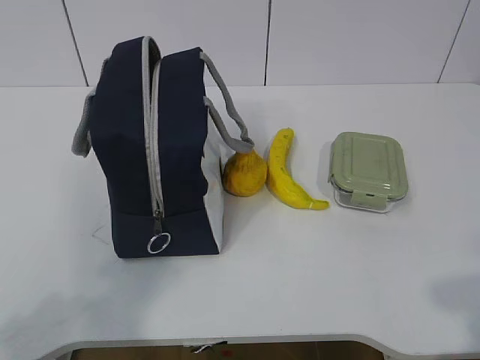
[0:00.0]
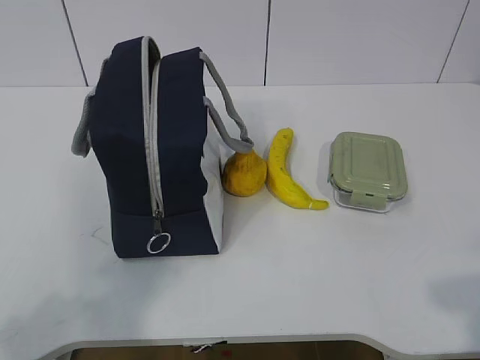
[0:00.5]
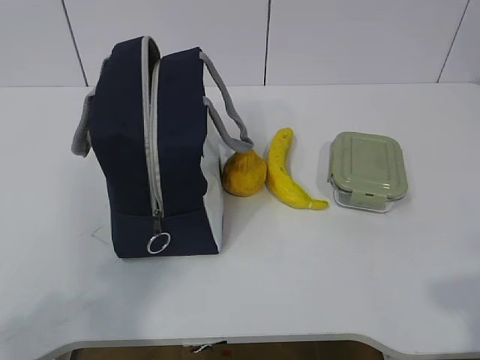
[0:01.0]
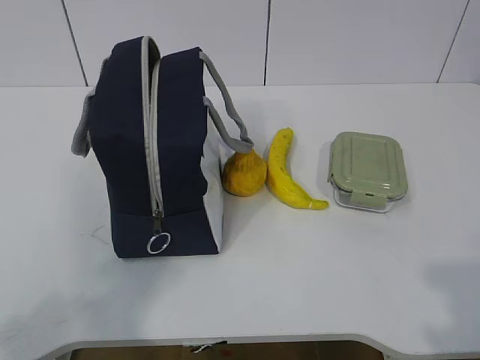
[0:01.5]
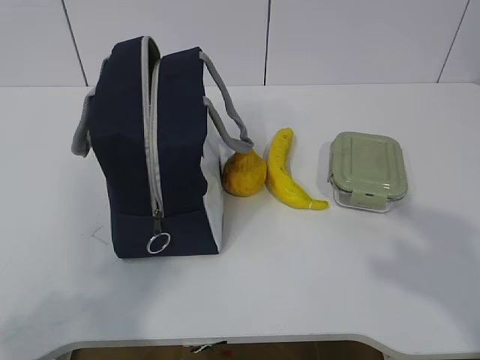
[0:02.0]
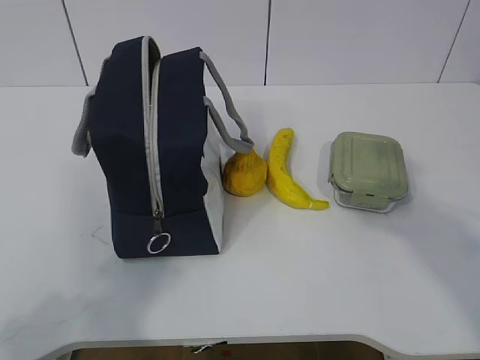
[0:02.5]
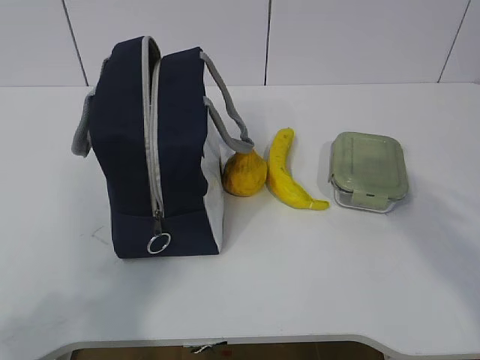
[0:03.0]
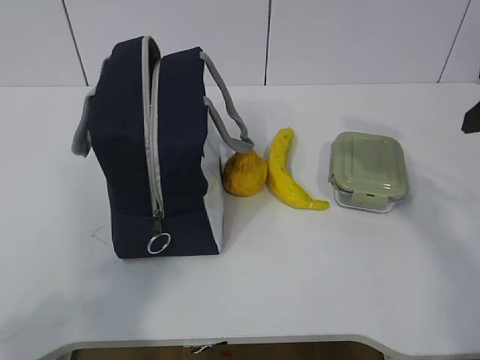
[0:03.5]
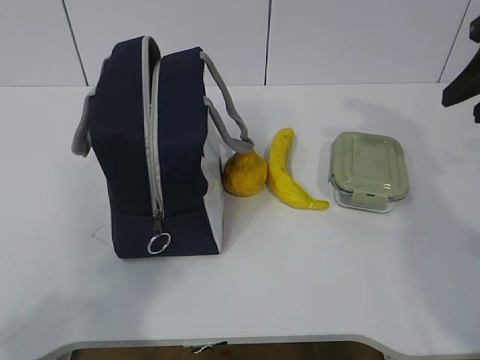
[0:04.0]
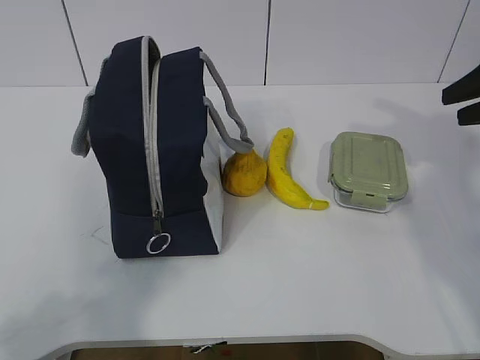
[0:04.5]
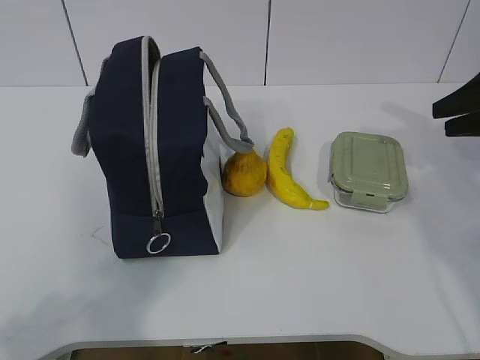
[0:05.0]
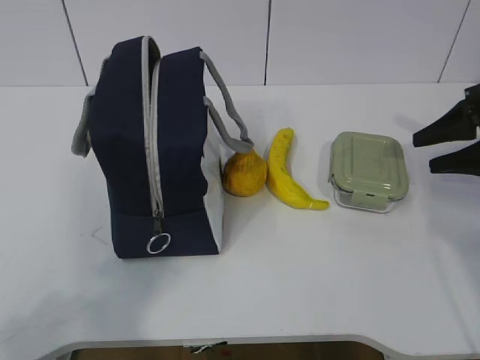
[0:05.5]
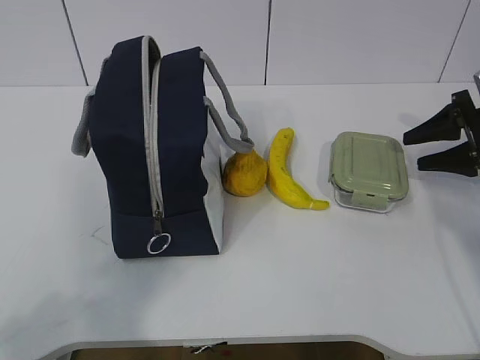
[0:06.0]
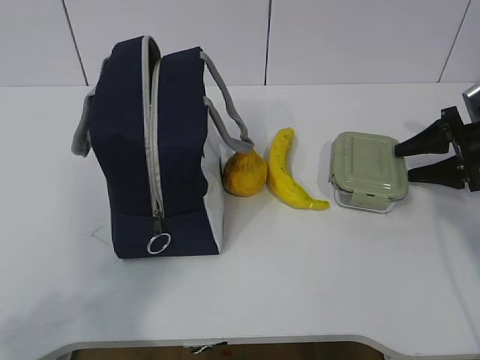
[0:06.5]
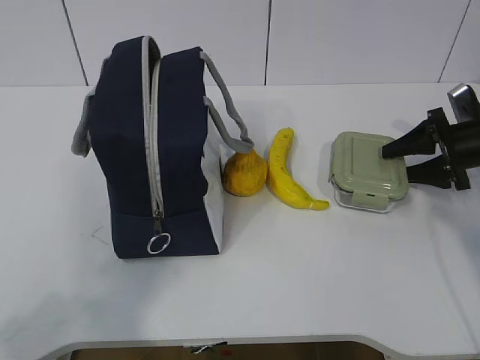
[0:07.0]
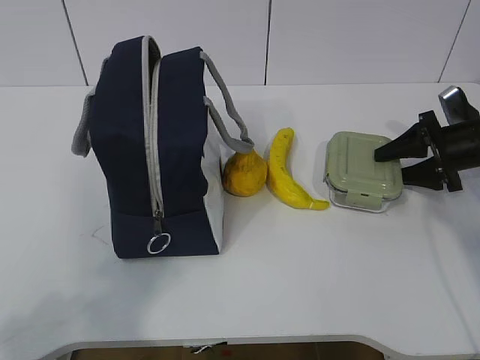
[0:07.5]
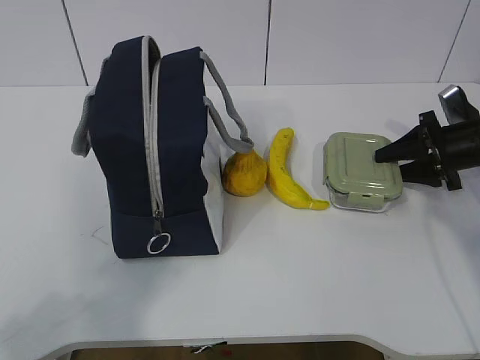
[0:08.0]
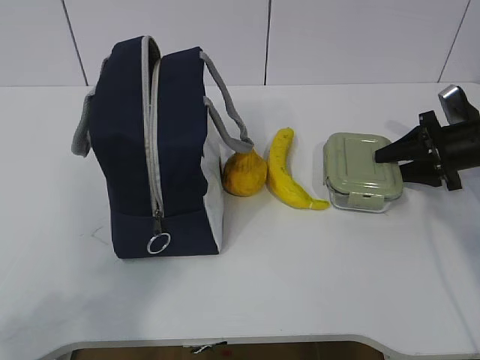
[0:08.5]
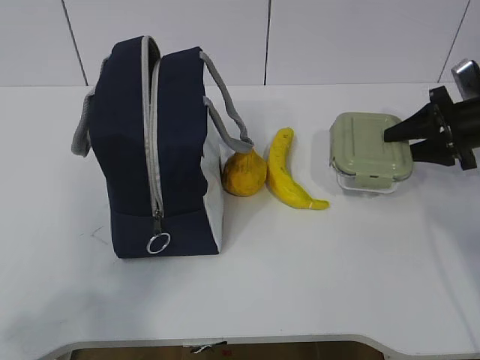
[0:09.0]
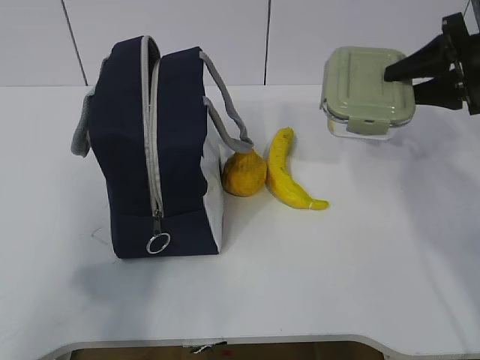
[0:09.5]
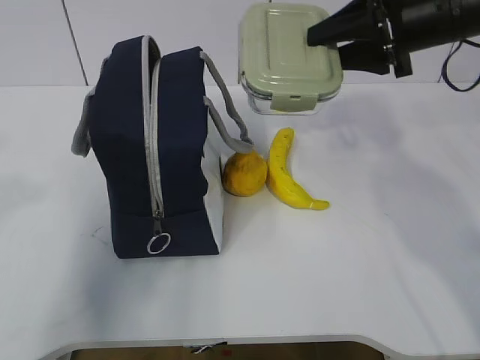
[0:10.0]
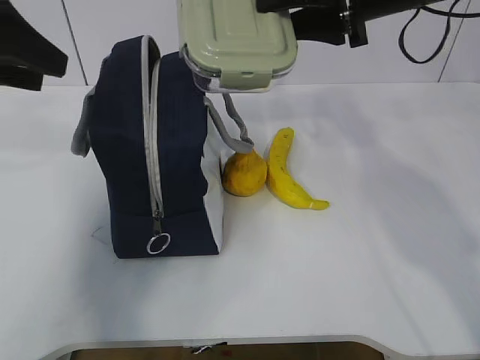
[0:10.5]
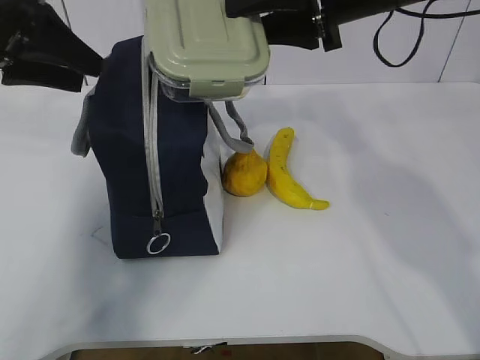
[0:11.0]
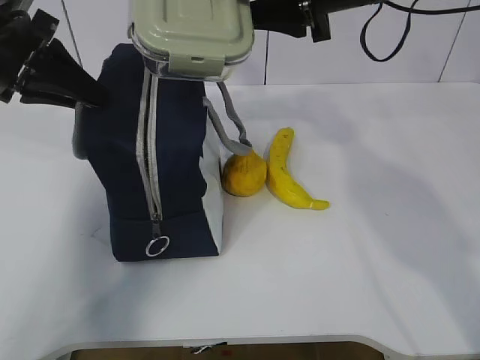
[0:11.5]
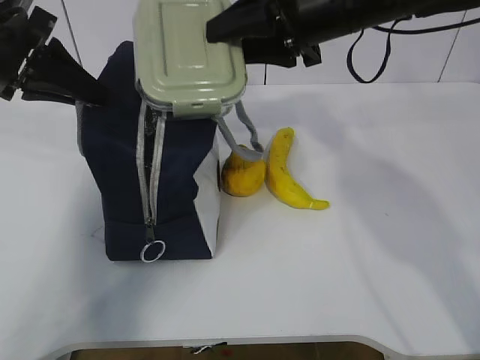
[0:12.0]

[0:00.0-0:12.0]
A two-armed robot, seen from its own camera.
Step, 0:00.0 to 0:07.0: Grab the lunch box with your right hand.
Step, 0:07.5 to 0:09.5: Grab the lunch bag with your left hand.
0:02.0 to 0:04.0: The right gripper is displaced forward by about 25 cm.
0:04.0 to 0:06.0: The right gripper shifts roughly 20 cm downward, forward and to the right.
0:06.0 to 0:08.0: There are only small adjustments of the grippers.
0:08.0 to 0:10.0: The right gripper heads upward and to the left, covering some 20 cm. The left gripper is displaced forward and upward by roughly 20 cm, and opens.
0:10.0 to 0:12.0: The right gripper moves to the left, about 10 cm; the left gripper is displaced forward by some 20 cm, and closes its fingers.

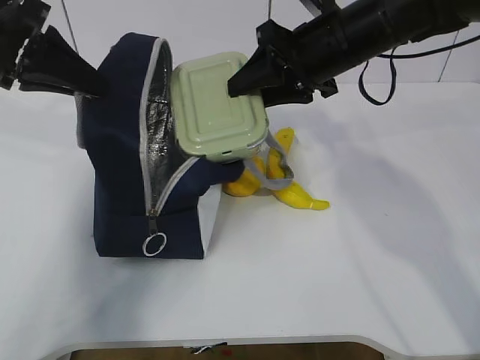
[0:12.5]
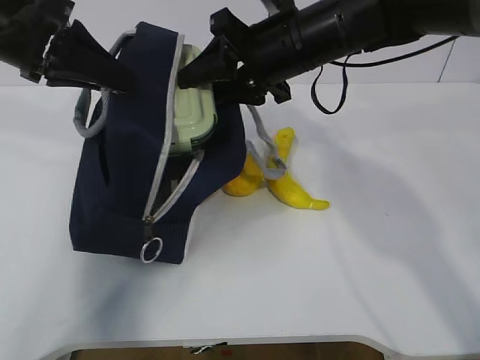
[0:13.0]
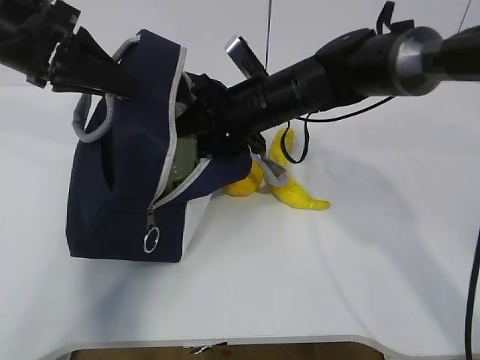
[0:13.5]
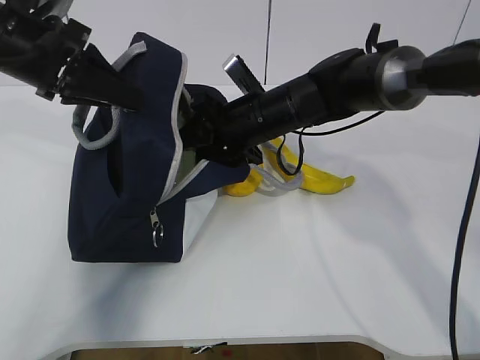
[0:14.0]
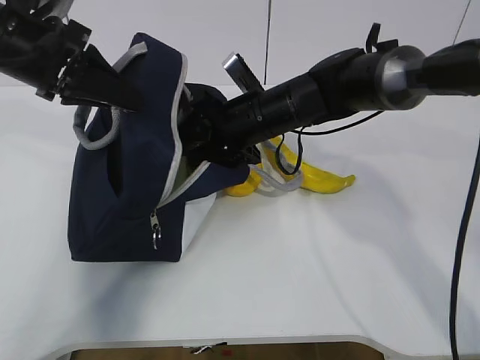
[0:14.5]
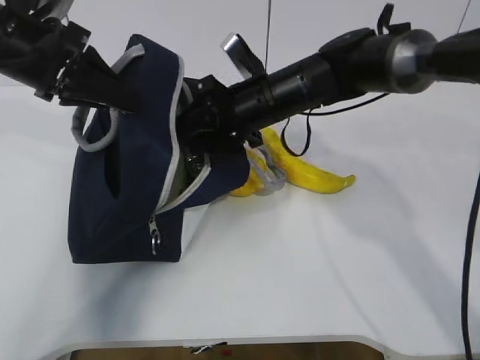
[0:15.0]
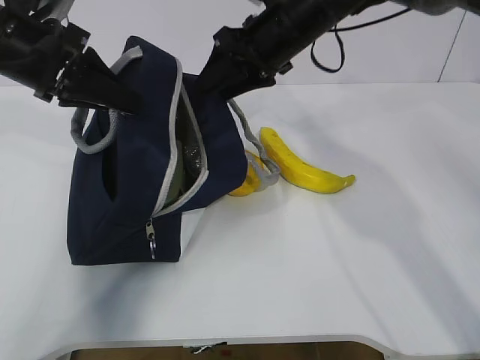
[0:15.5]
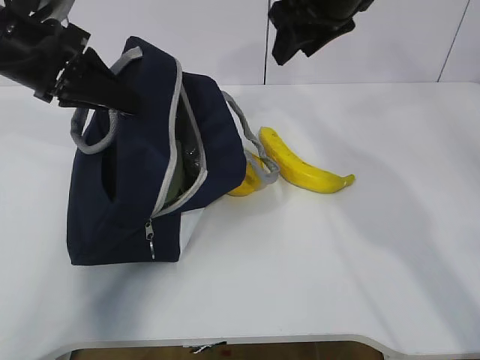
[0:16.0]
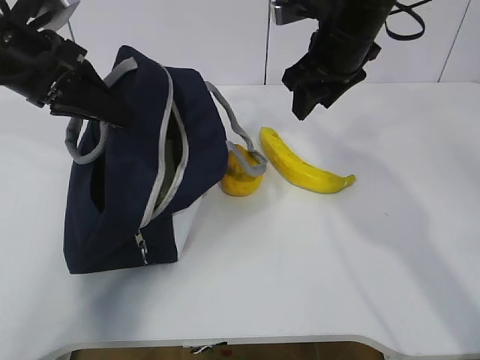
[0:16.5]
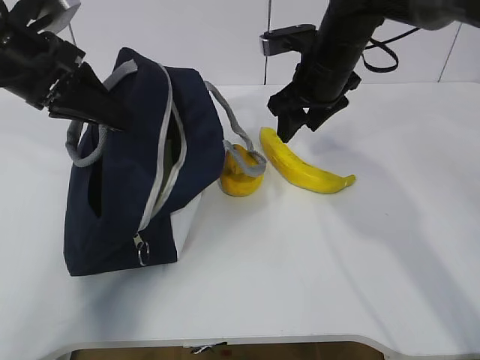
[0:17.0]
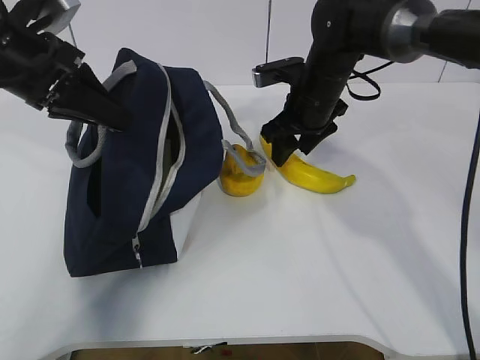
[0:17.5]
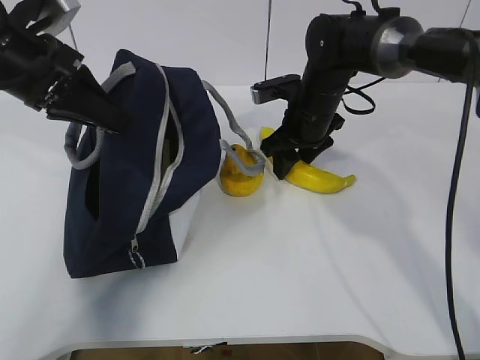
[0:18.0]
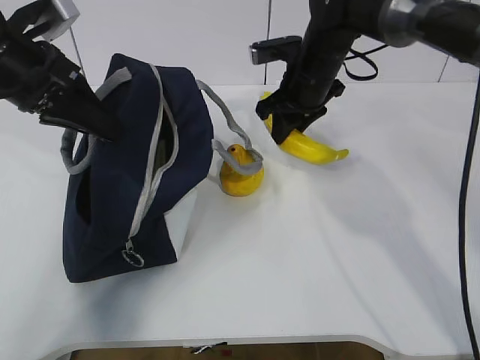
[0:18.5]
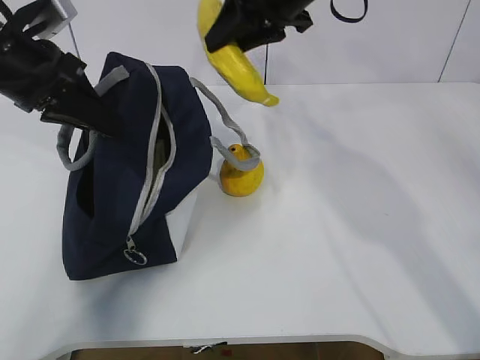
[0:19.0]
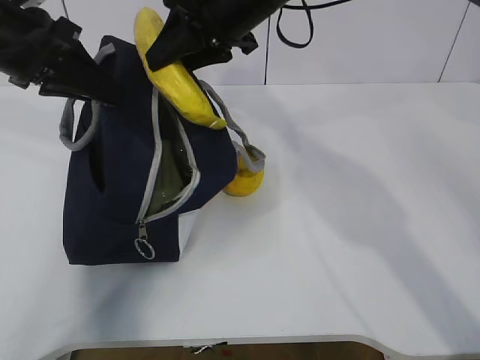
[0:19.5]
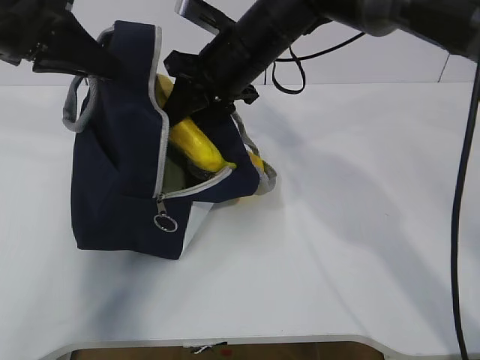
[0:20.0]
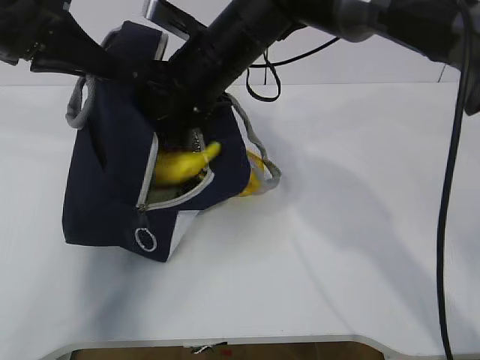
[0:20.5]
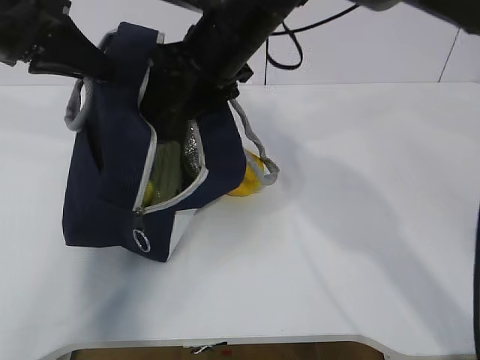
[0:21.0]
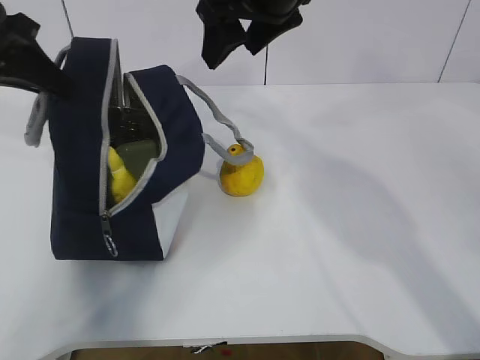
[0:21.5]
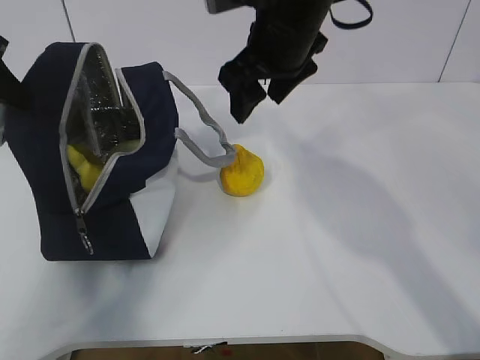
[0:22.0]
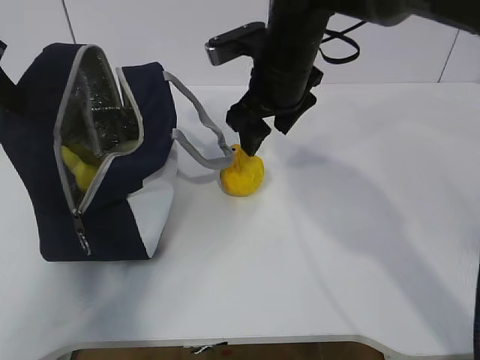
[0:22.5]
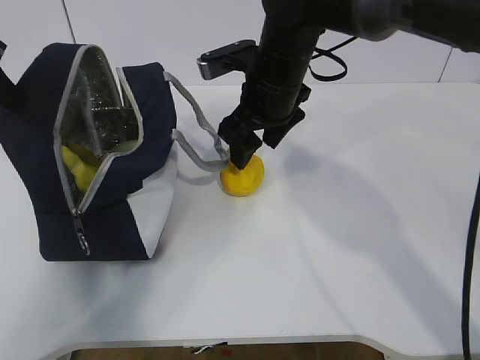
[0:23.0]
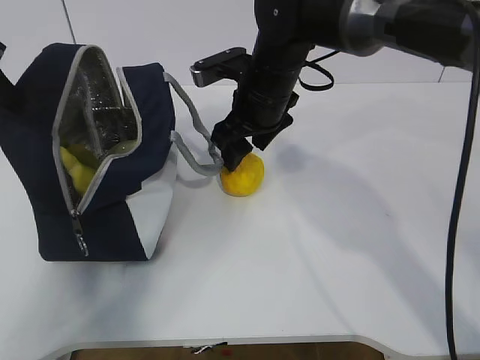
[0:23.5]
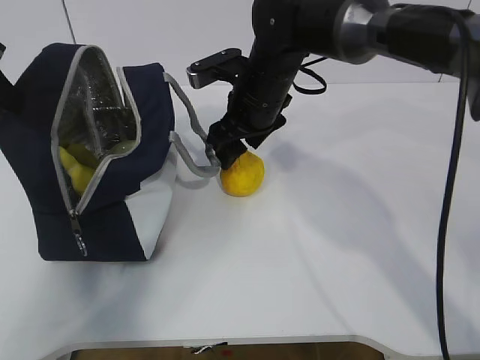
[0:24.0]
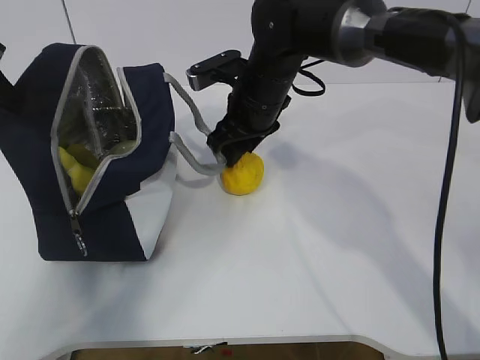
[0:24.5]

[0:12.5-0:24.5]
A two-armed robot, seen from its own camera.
Step, 0:12.5 to 0:15.0: Grab the banana with your right hand.
Step, 0:15.5 to 0:17.0: Place it into the bag with your right hand.
Step, 0:18.0 to 0:20.5: Grab the pear with your right hand.
Step, 0:21.0 to 0:23.0: Secure the lunch bag with your left hand.
Step, 0:23.5 to 0:24.0: Grab the lunch bag with your right hand.
0:12.5 to 0:14.5: The right gripper heads downward and to the left, covering approximately 15 cm.
0:14.5 to 0:16.5: The right gripper shifts approximately 15 cm upward and to the right.
0:16.5 to 0:18.5: The right gripper heads downward, covering some 5 cm.
0:18.5 to 0:20.5: The right gripper heads to the left, backward and upward, covering approximately 15 cm.
0:20.5 to 0:22.5: The left gripper heads to the left, covering roughly 10 cm. Meanwhile the right gripper moves to the right, roughly 5 cm, and goes upward and returns, approximately 10 cm each way.
0:22.5 to 0:24.5: The right gripper changes place by approximately 5 cm, and closes its fingers.

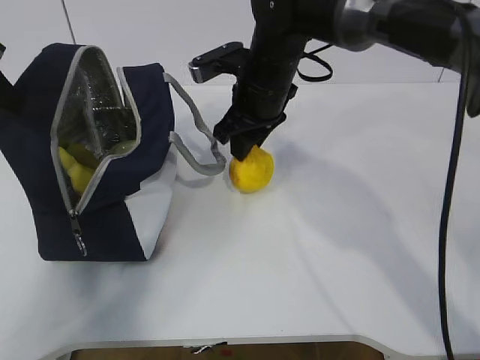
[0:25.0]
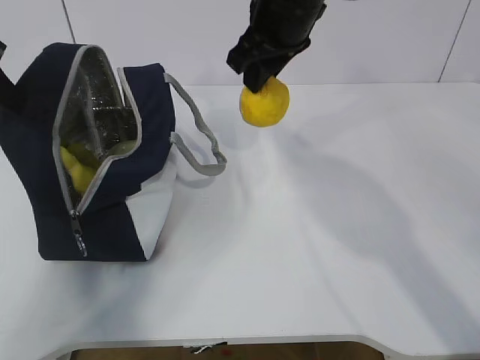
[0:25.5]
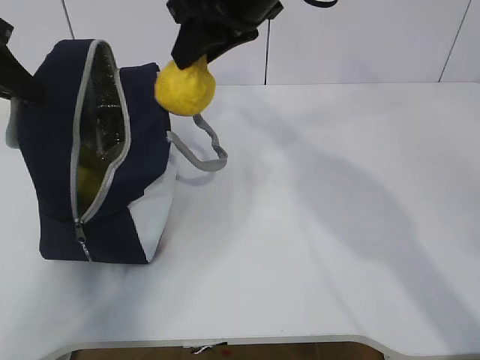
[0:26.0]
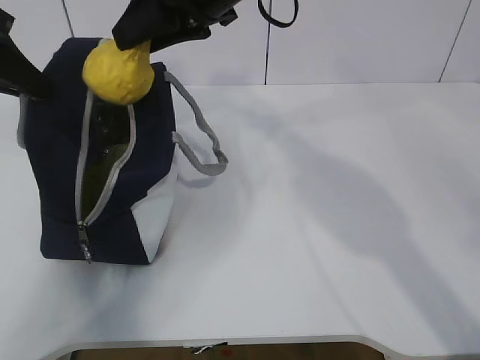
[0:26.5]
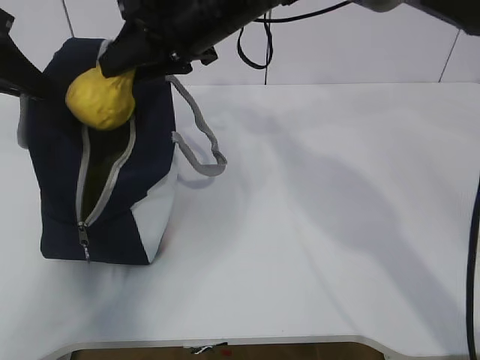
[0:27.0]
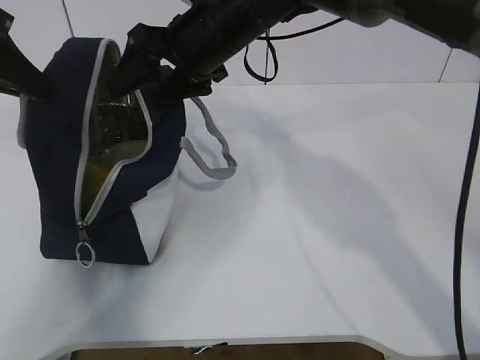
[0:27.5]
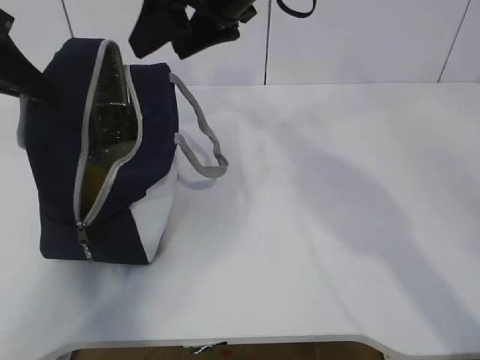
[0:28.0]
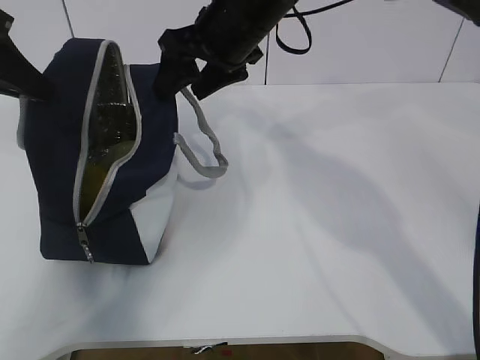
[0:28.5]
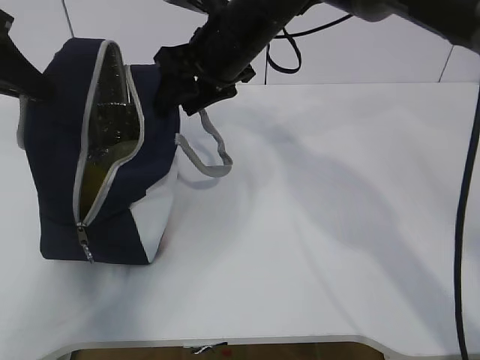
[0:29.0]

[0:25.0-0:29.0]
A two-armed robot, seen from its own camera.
0:25.0 to 0:27.0: The right gripper shifts roughly 10 cm upward and to the left.
